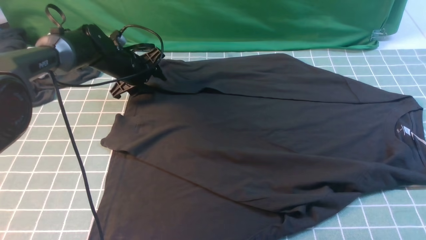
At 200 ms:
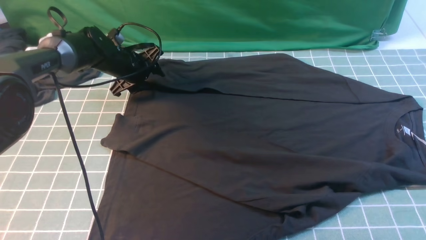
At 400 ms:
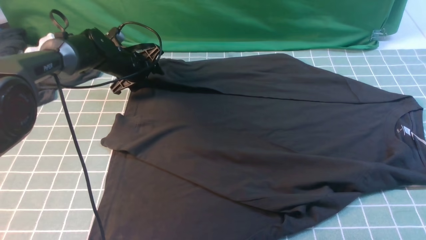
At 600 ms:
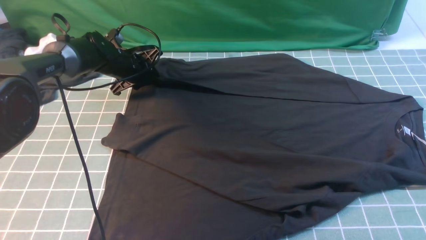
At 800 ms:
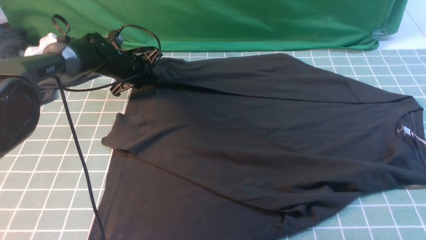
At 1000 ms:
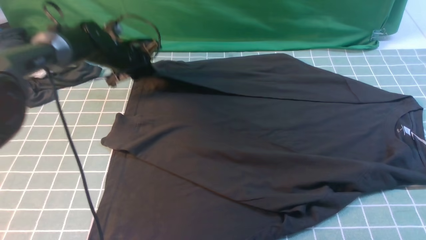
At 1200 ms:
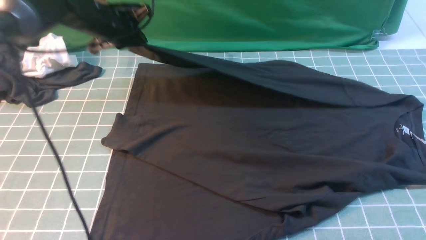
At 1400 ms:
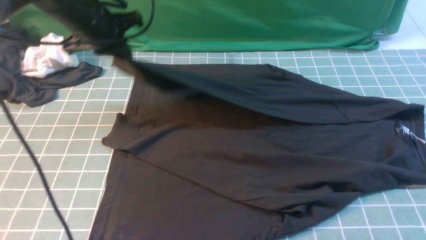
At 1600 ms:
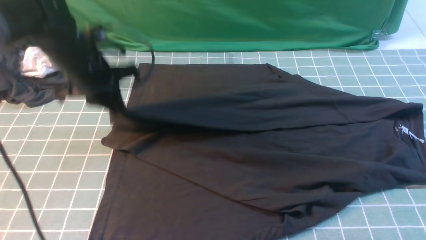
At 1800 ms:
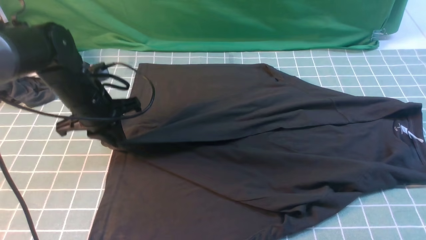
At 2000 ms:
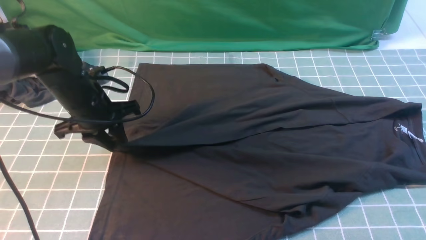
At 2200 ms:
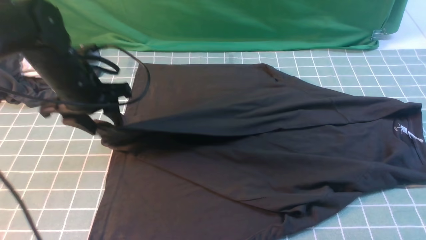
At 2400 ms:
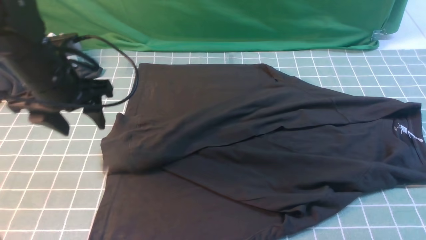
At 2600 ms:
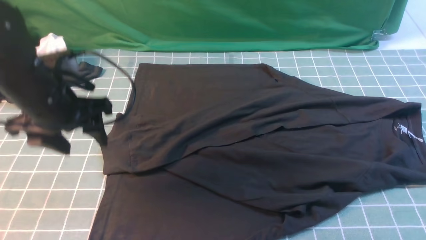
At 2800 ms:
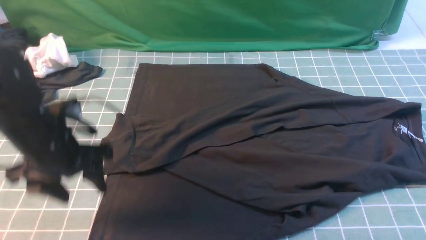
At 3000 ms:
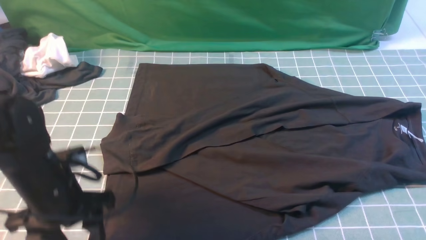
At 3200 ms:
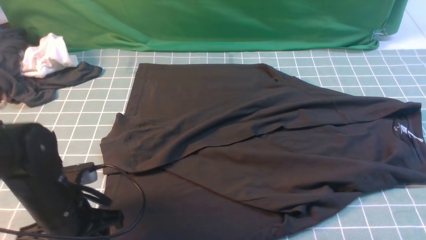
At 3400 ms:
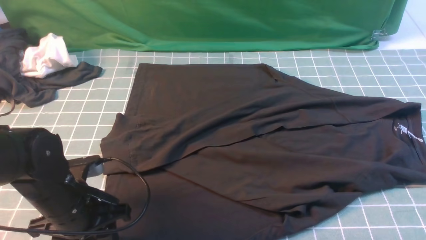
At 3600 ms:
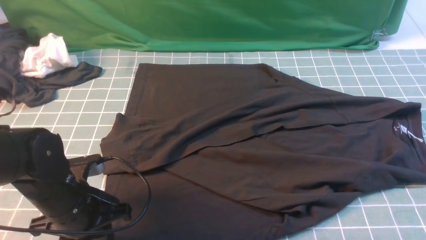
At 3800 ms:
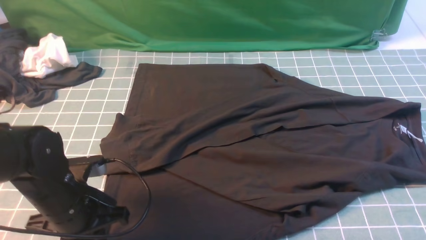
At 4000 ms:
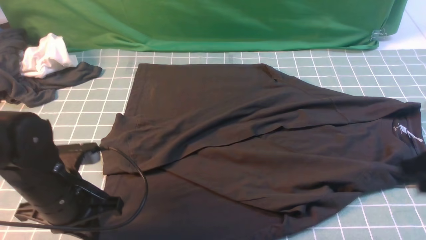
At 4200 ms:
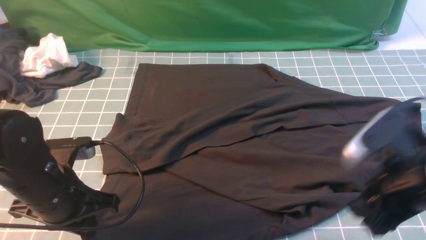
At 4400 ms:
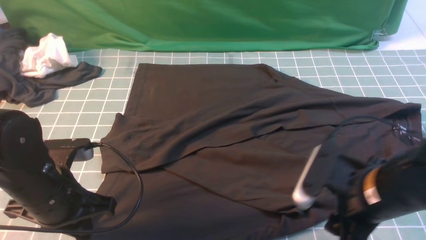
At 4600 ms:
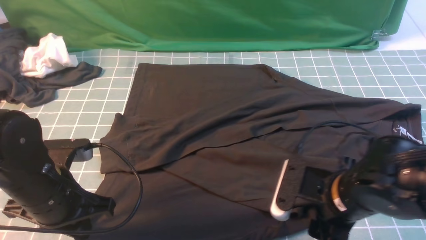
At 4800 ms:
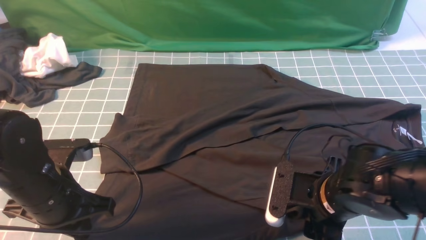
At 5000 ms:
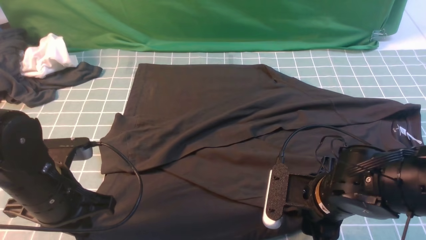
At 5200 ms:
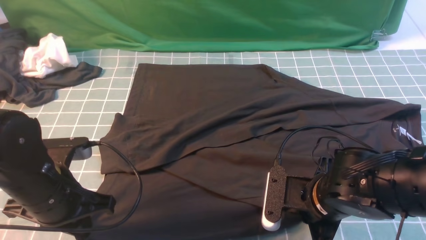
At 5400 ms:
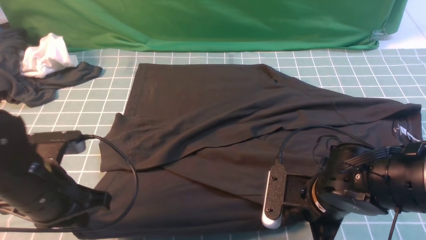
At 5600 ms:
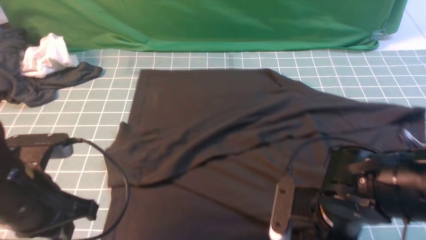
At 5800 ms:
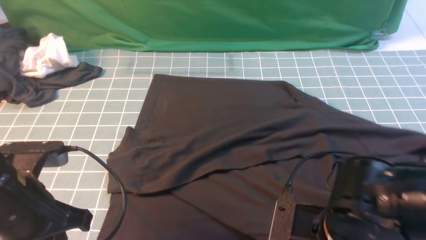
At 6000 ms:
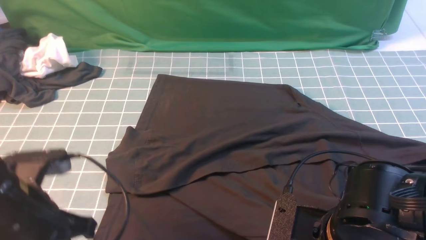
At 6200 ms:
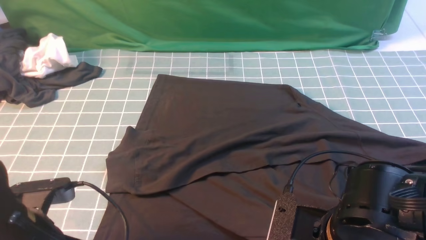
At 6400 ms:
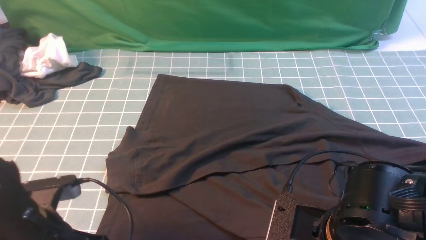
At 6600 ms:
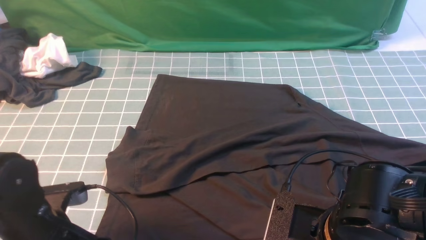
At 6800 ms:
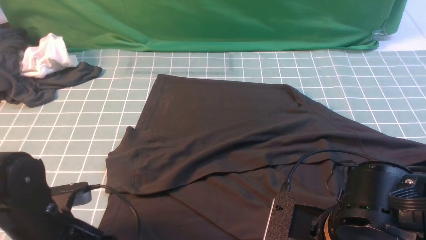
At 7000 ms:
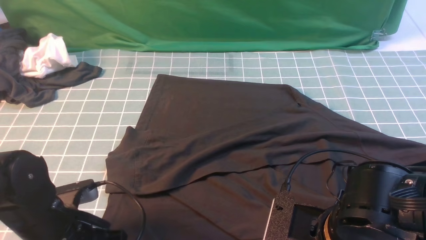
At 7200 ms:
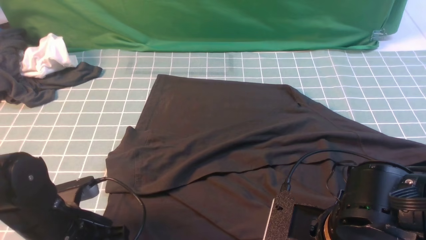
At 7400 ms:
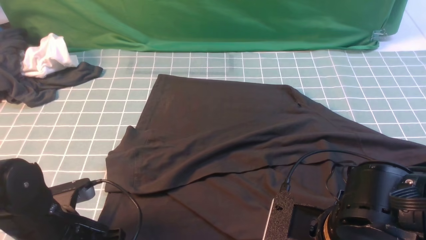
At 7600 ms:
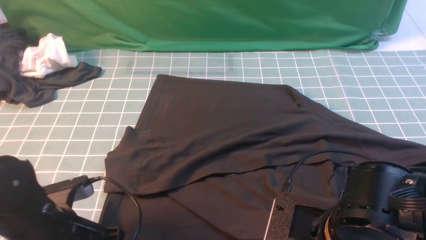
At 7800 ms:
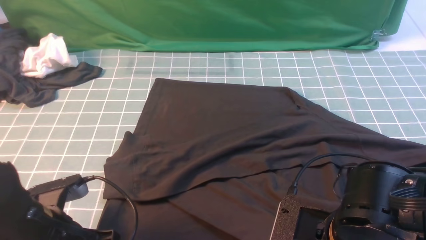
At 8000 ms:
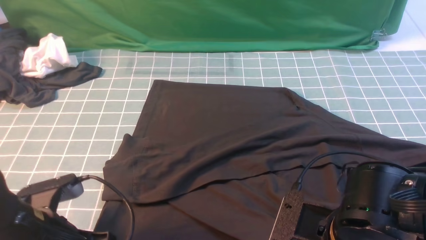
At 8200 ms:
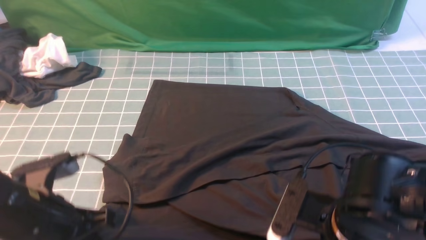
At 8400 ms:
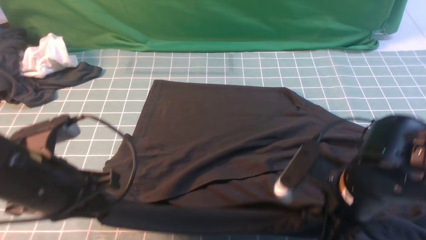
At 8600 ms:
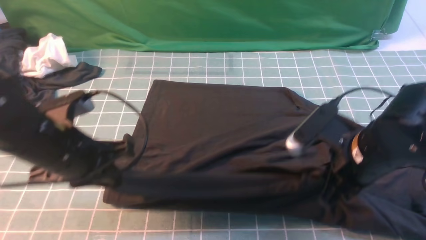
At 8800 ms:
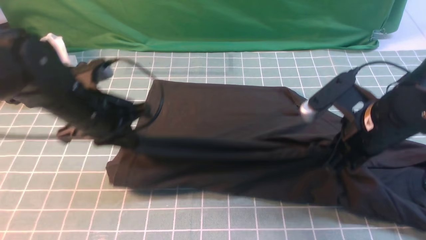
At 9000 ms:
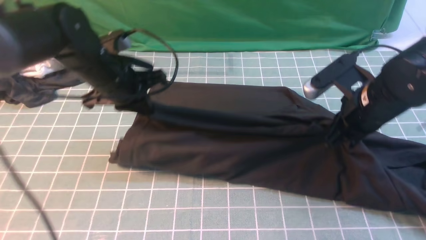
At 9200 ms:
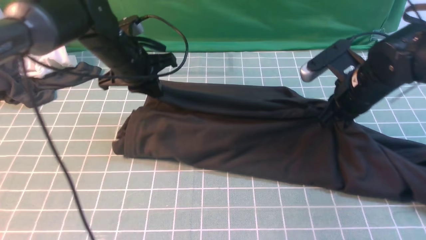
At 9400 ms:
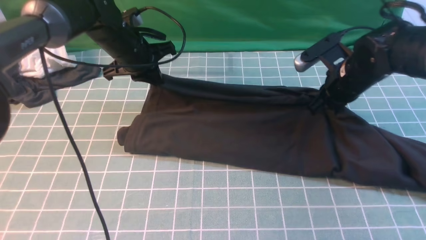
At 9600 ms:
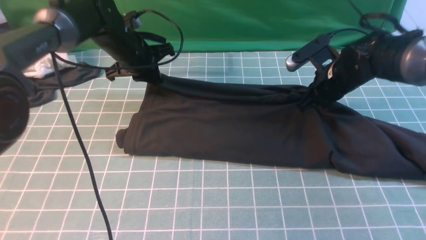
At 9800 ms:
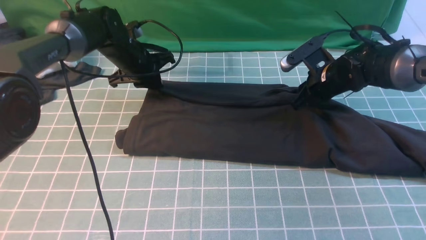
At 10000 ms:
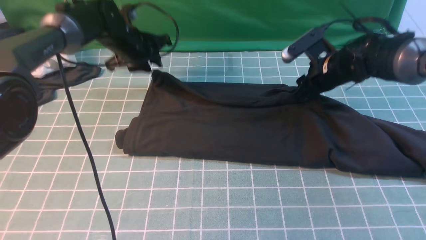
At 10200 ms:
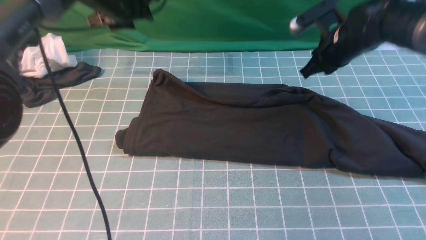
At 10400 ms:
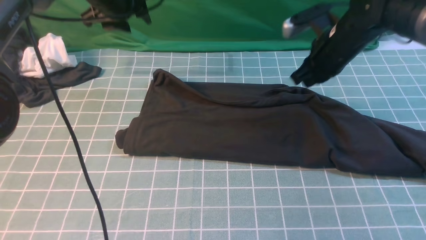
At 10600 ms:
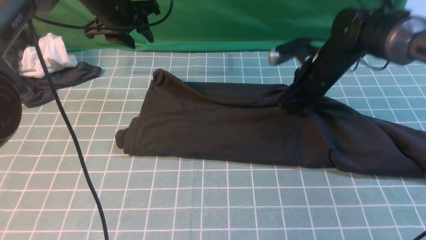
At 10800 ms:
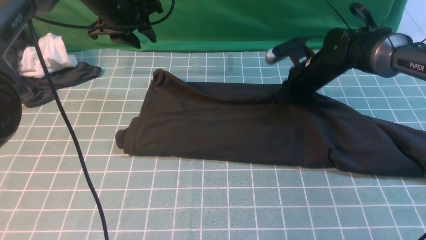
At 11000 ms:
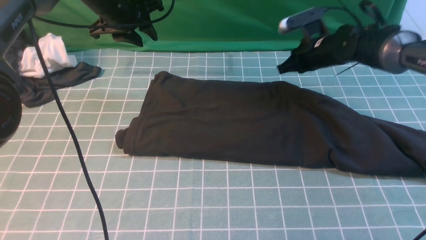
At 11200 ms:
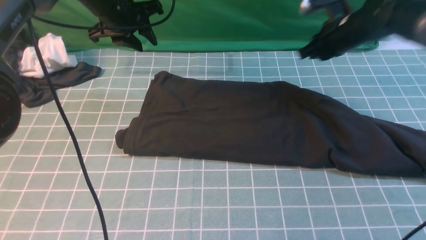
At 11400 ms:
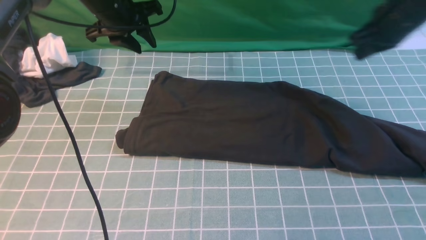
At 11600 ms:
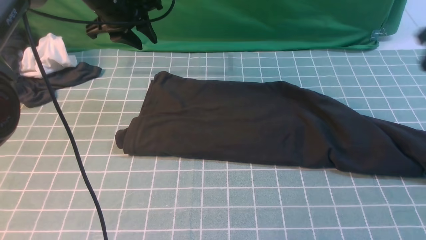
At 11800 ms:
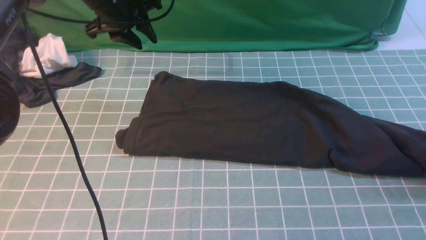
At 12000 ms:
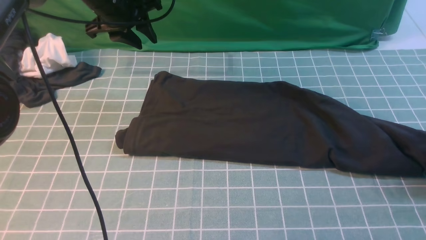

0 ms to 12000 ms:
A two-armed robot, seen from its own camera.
Step, 1200 ms to 2400 ms: use the left arm to drag and drop the cuff onto the cuff closest to the left arm.
Step, 2600 ms to 8200 ms: use both arms simultaneously to clamp the lower edge of the clothing fabric.
Step, 8400 ms to 10800 ms: use both arms to drag the lower edge of the fabric forward and fold it over the upper edge.
0 ms to 1600 ms: The left gripper travels backward and upward by some 15 cm, and closes up.
1600 ms to 3000 ms: The left gripper shifts approximately 15 cm backward, and opens its fingers.
3000 ms to 4400 ms: The left gripper closes its fingers; the right gripper goes roughly 15 cm to the left and downward, and opens up.
4400 ms to 6000 ms: The left gripper shifts by roughly 5 cm. The right gripper moves backward, about 5 cm, and closes.
6000 ms to 7600 ms: The left gripper heads downward, covering roughly 5 cm, and opens and closes again.
7600 ms to 9000 ms: Both grippers travel together forward, approximately 20 cm.
9000 ms to 10400 ms: Both grippers travel together forward, roughly 10 cm. The left gripper opens; the right gripper opens, then closes again.
10400 ms to 12000 ms: The right gripper is displaced to the right and backward by some 25 cm, and opens its fingers.

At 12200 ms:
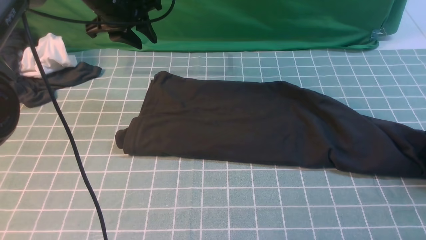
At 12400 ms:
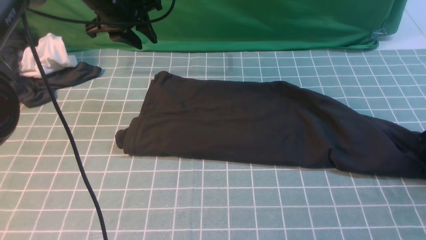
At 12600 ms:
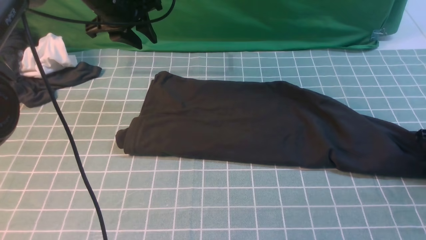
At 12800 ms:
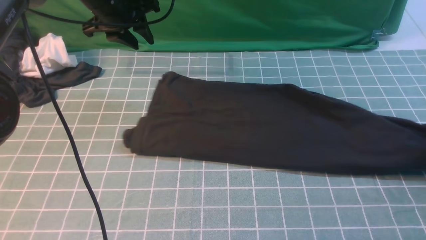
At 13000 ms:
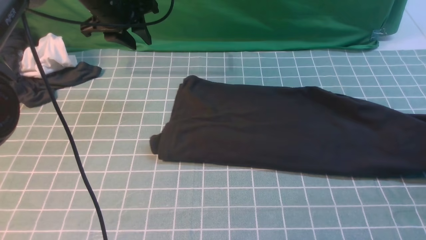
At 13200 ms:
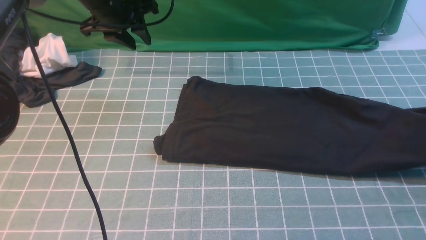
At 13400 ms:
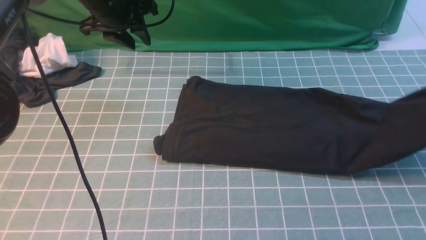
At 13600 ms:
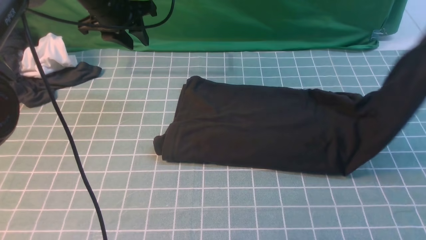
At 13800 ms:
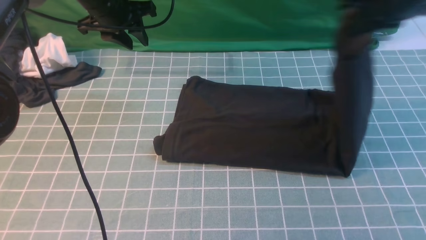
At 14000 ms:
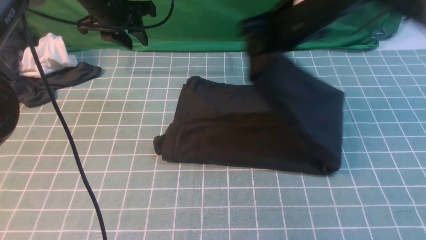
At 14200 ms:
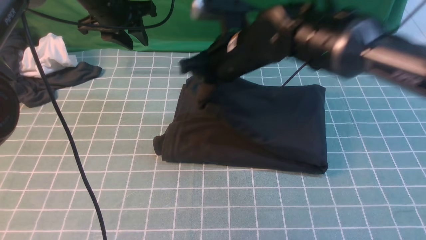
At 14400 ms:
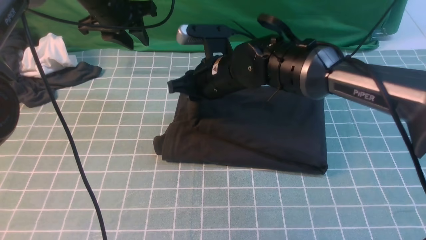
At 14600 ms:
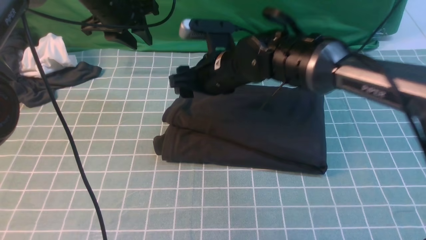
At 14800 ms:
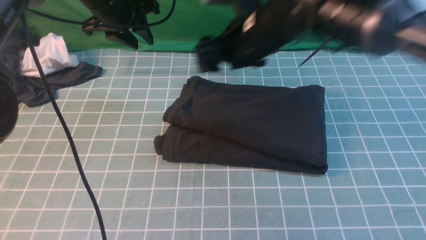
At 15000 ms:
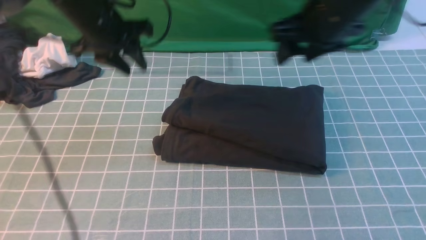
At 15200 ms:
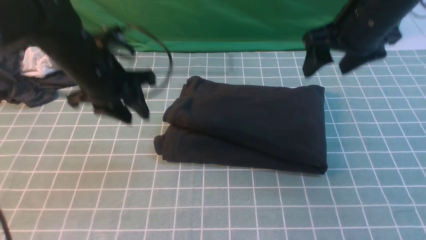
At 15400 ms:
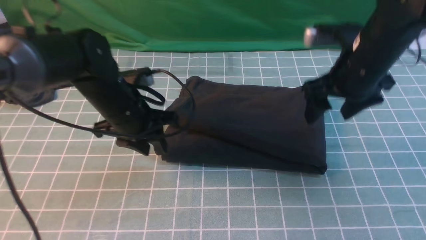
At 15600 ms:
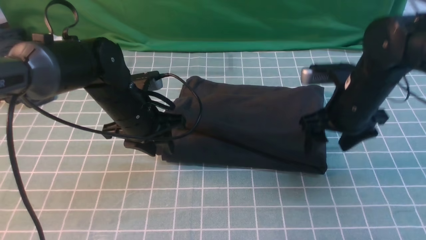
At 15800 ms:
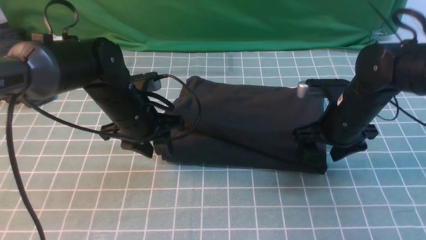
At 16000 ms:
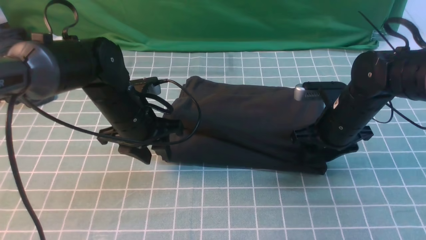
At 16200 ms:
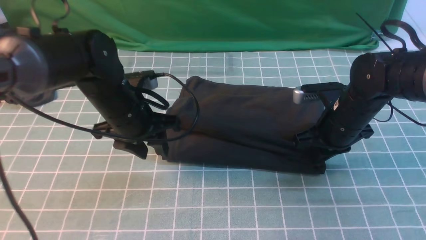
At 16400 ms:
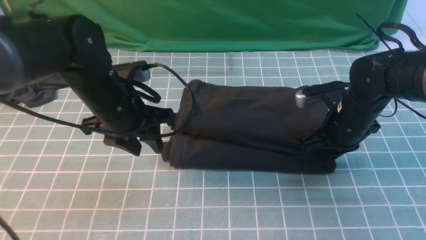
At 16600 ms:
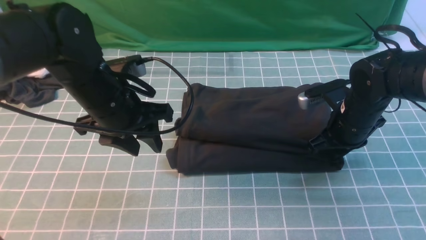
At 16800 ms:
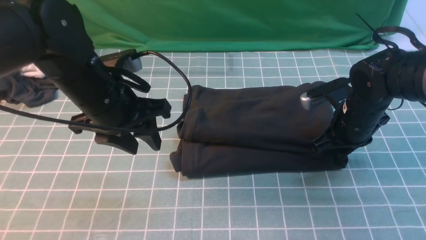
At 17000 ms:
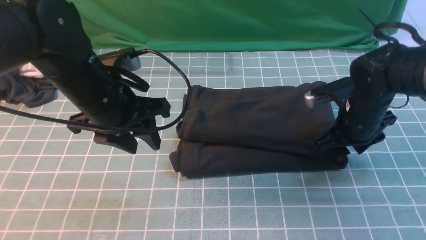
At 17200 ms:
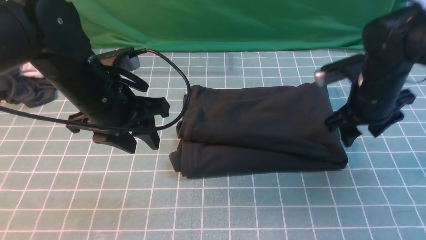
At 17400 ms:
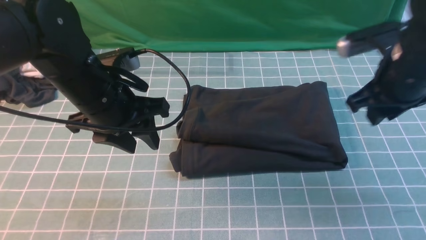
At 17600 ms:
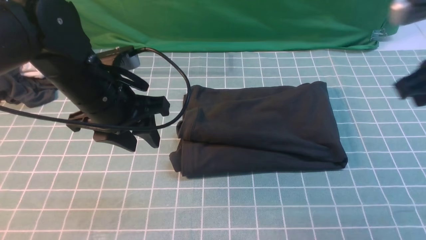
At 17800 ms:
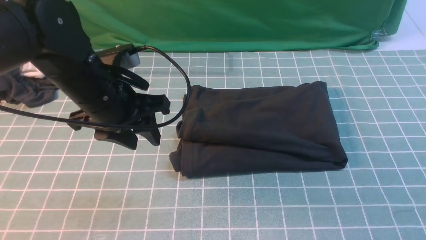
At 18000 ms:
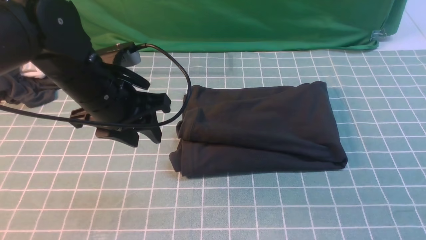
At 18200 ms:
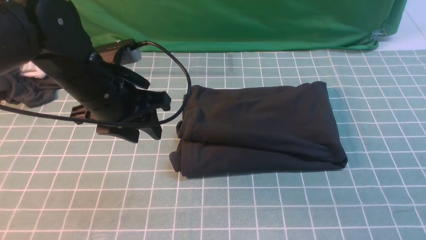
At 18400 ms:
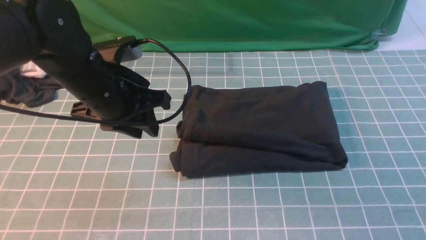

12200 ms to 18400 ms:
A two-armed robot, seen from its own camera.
Step, 13200 ms to 14600 ms: use the right arm to drag the right edge of the fabric to the left and folds it over the left edge.
12200 ms to 13800 ms: The right gripper moves to the left and upward, about 30 cm, and closes up.
13800 ms to 15400 ms: The left gripper moves backward and downward, roughly 15 cm, while the right gripper travels downward by some 10 cm, travels to the left and back again, about 20 cm each way, and opens up.
15400 ms to 16800 ms: The left gripper heads upward and backward, covering about 10 cm; the right gripper heads downward, covering some 10 cm, and closes its fingers.
16800 ms to 18400 ms: The right gripper moves backward and upward, roughly 30 cm, and closes its fingers.
